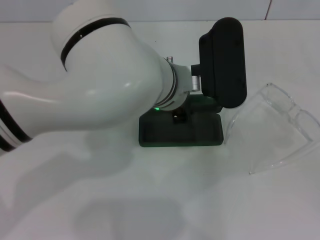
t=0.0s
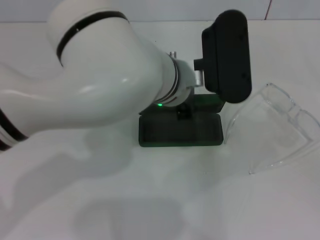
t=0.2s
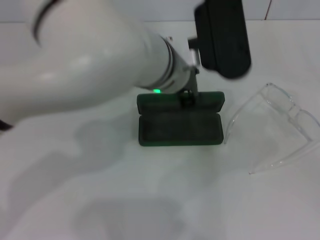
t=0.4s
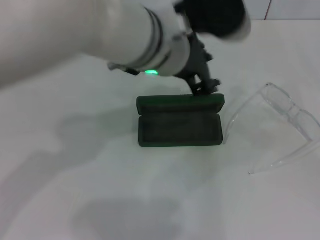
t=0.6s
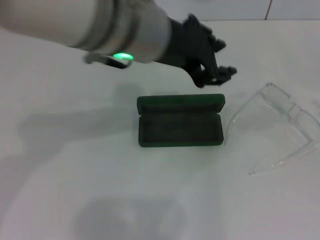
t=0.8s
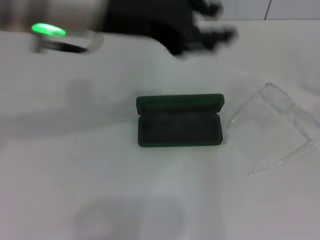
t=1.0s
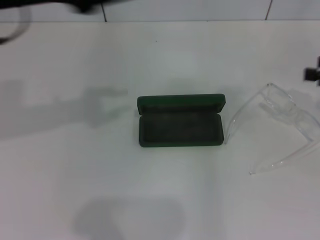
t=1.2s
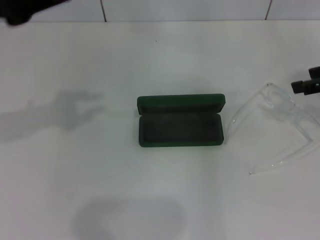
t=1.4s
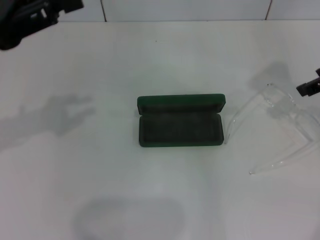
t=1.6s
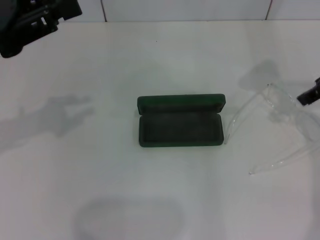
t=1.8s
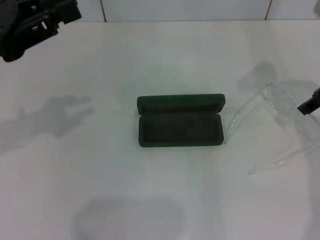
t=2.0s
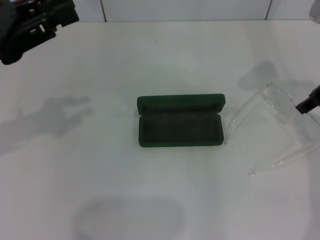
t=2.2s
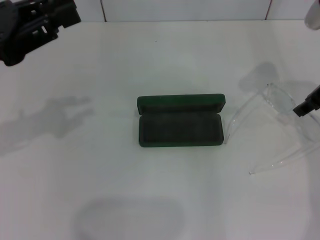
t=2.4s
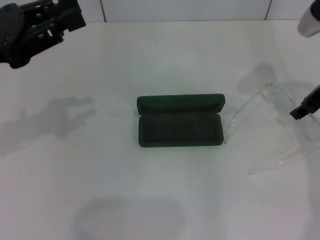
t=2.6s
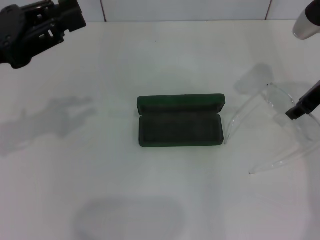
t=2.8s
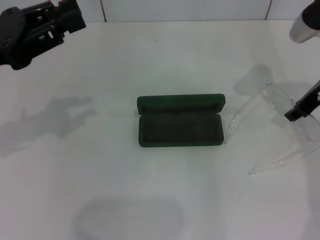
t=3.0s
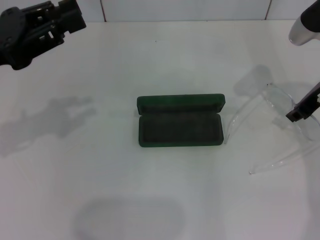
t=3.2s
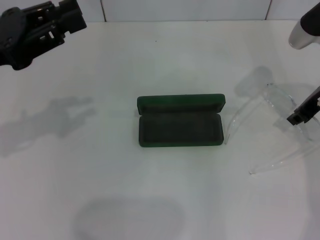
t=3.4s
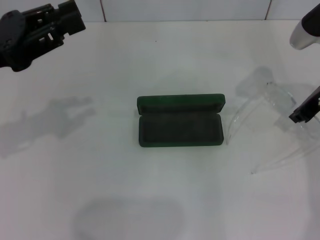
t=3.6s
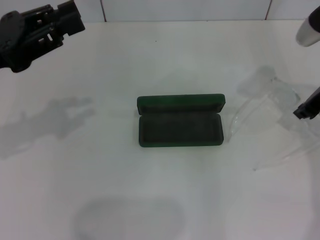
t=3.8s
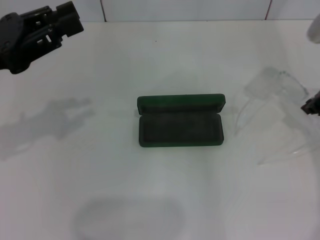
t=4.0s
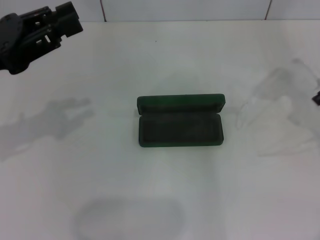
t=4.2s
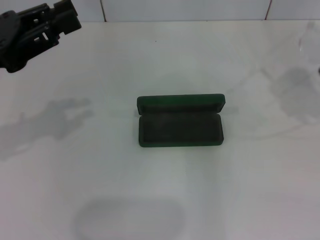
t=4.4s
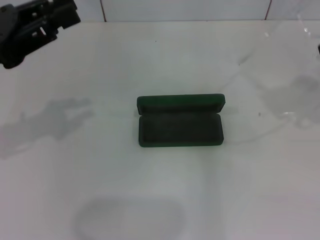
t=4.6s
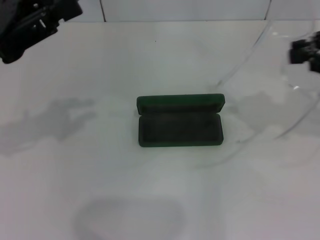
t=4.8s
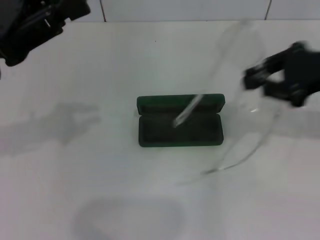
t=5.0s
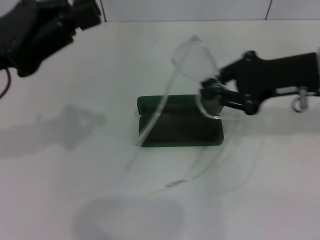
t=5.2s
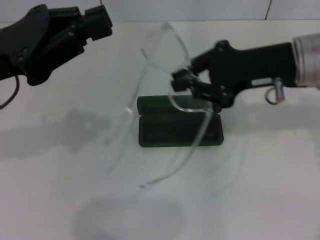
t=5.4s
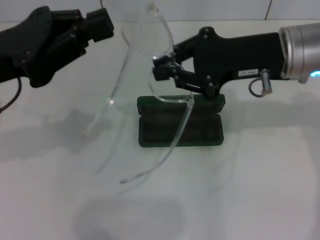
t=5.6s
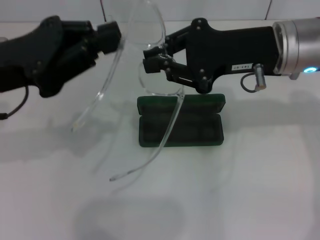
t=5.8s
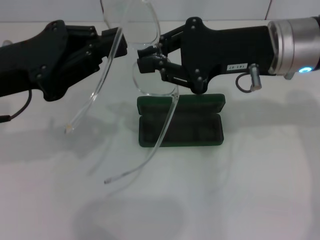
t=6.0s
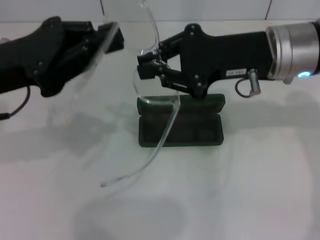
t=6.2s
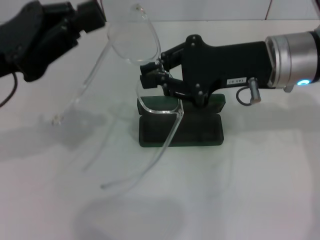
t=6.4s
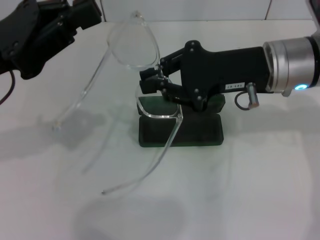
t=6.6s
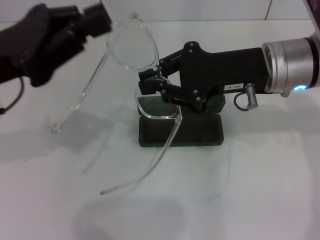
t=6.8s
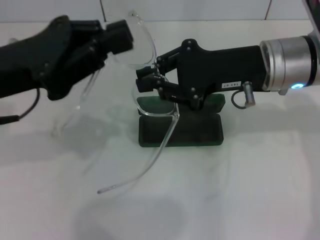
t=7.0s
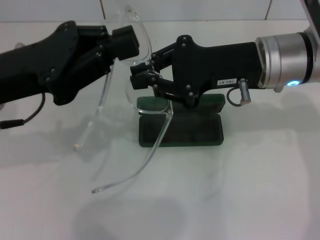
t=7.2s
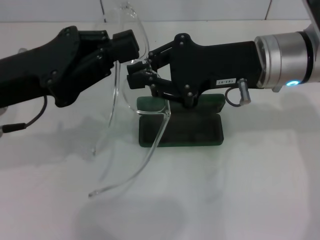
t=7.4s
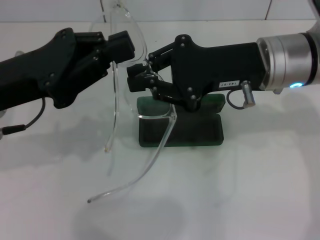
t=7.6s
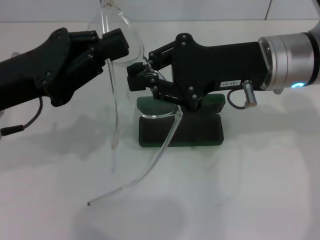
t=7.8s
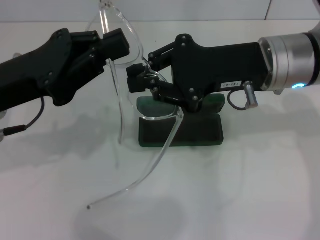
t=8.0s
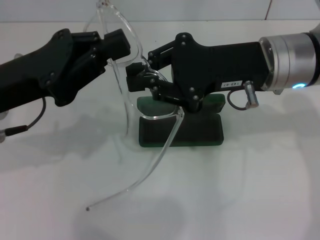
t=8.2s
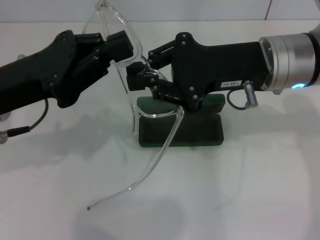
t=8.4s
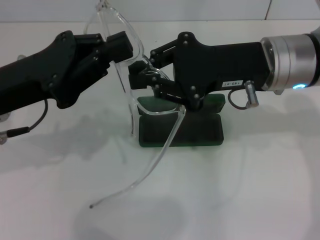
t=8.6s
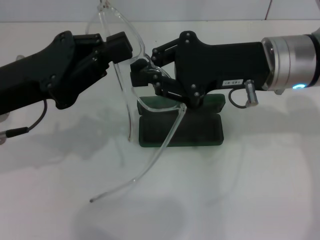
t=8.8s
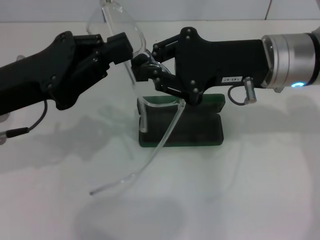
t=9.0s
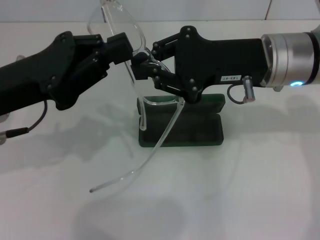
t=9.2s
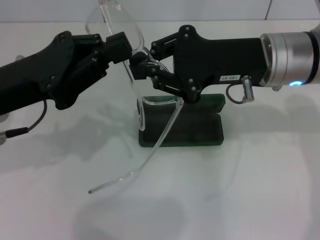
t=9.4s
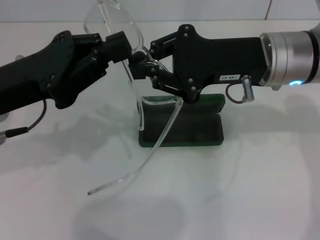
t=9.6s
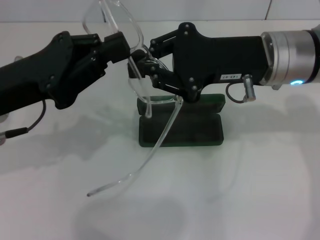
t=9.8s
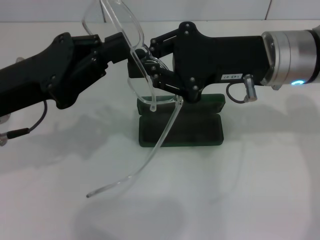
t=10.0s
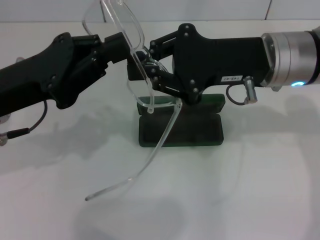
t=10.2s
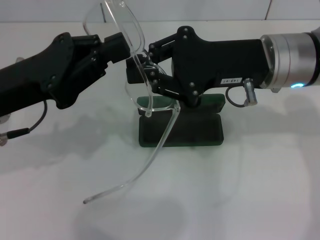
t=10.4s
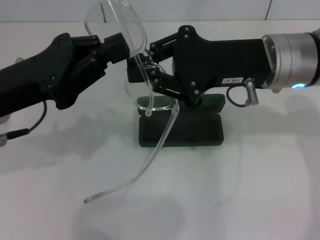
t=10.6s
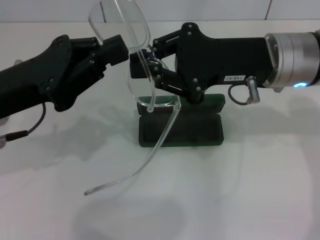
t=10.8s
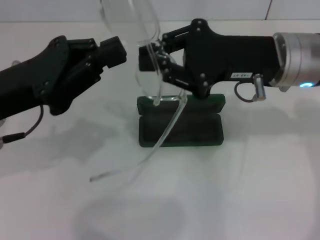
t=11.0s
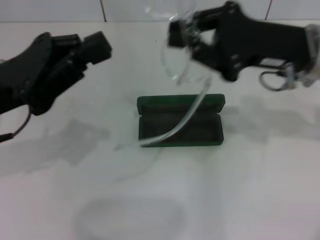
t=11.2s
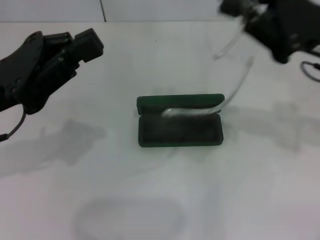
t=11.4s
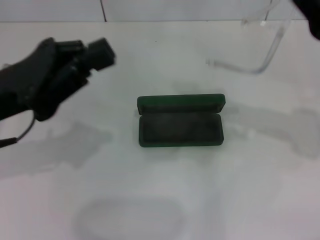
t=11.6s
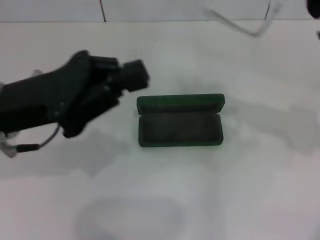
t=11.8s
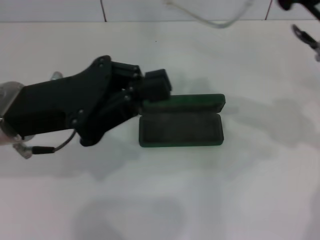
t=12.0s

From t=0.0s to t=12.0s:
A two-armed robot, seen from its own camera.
Step, from t=0.2s to t=3.4s: Grab the eyeglass frame with your right hand.
From t=0.0s to t=1.6s: The left gripper travels to the left by some 25 cm, while the right gripper is displaced forward, to the left and upward by some 30 cm.
From t=1.6s to t=3.0s: The right gripper goes approximately 5 cm downward.
From t=3.0s to t=4.4s: The right gripper goes about 10 cm to the right and upward, and closes.
From t=4.4s to t=6.0s: The right gripper shifts some 15 cm to the left.
From t=6.0s to t=7.6s: The grippers move only a little.
From t=7.6s to t=9.0s: Both grippers stay put.
From t=9.0s to t=10.4s: The two grippers keep their place.
From t=10.4s to t=12.0s: The right gripper travels to the right by approximately 5 cm.

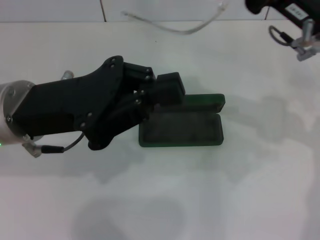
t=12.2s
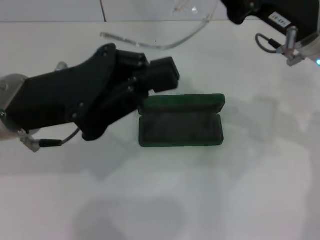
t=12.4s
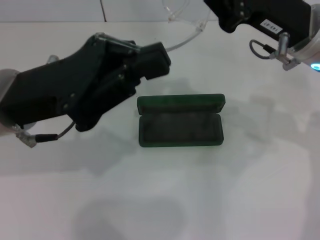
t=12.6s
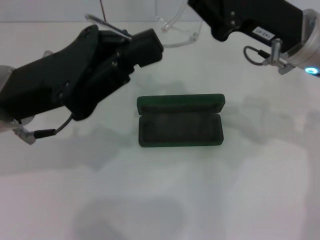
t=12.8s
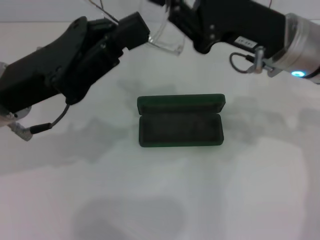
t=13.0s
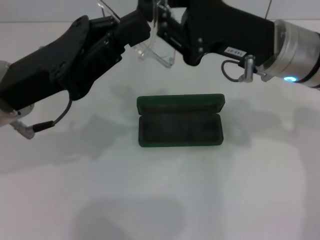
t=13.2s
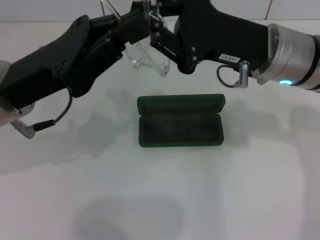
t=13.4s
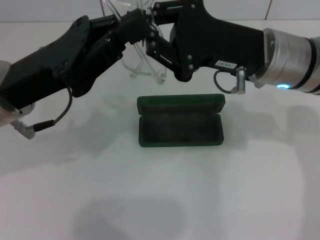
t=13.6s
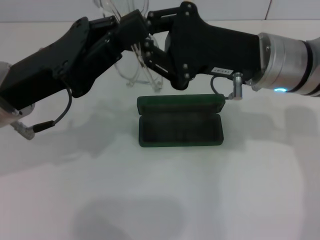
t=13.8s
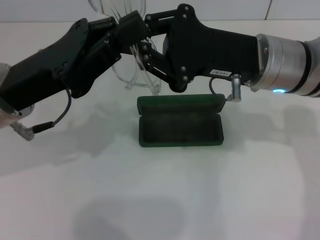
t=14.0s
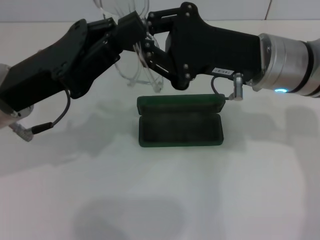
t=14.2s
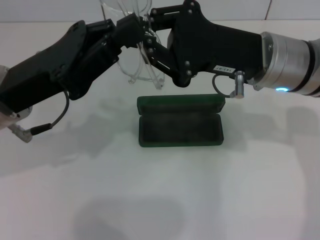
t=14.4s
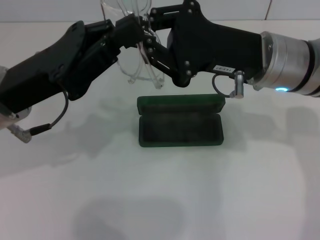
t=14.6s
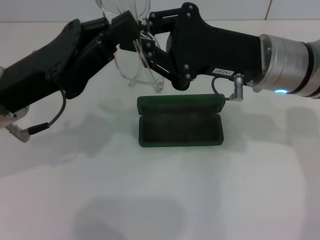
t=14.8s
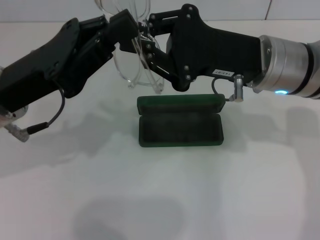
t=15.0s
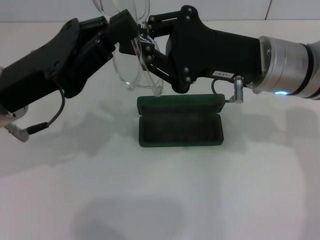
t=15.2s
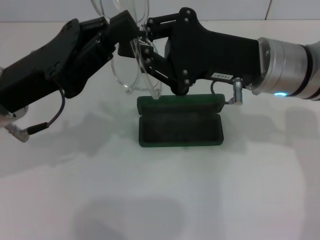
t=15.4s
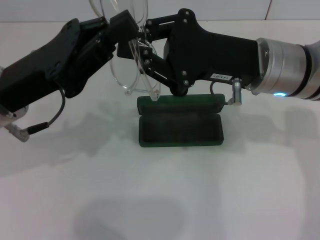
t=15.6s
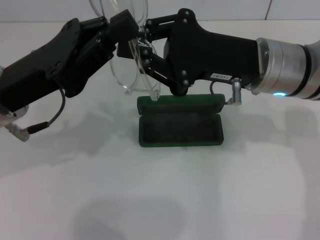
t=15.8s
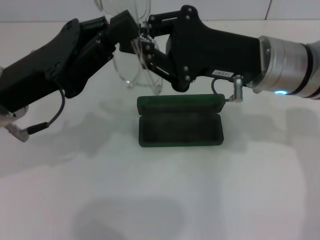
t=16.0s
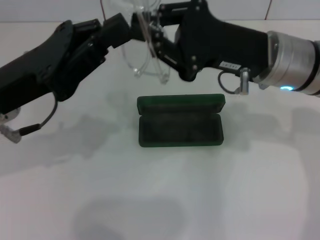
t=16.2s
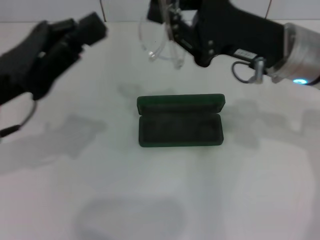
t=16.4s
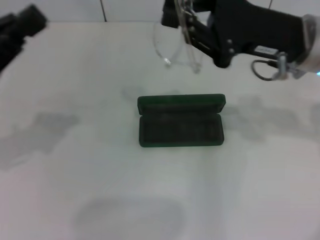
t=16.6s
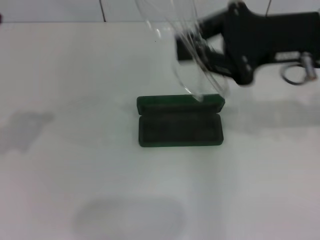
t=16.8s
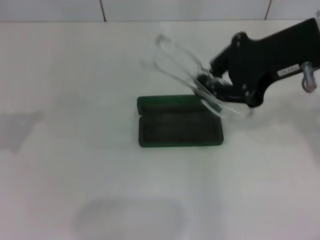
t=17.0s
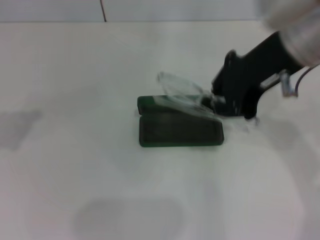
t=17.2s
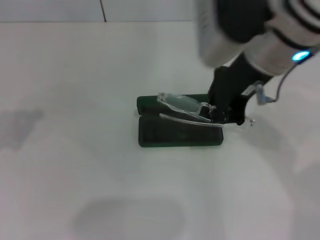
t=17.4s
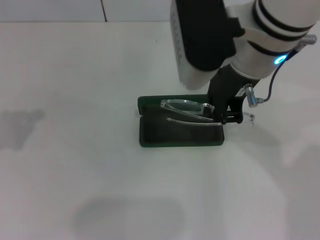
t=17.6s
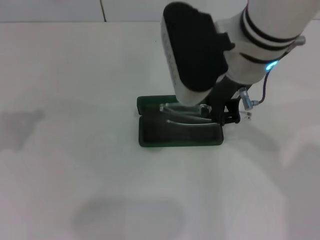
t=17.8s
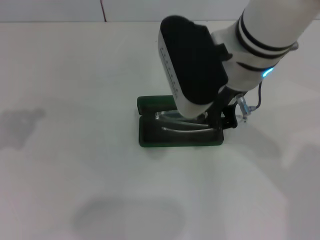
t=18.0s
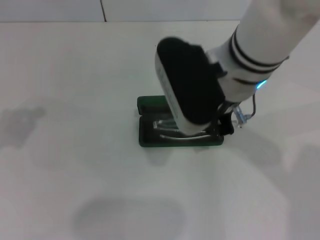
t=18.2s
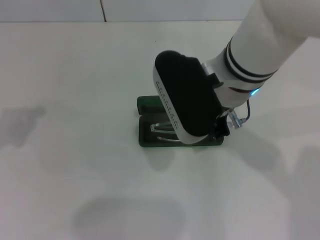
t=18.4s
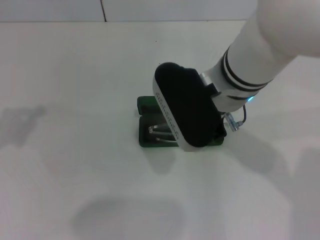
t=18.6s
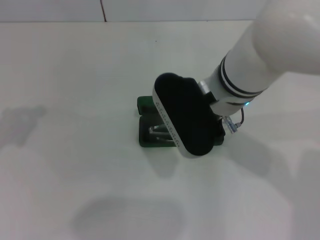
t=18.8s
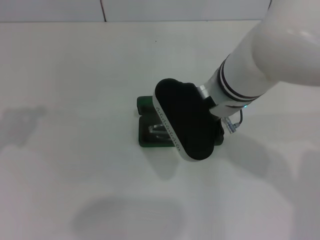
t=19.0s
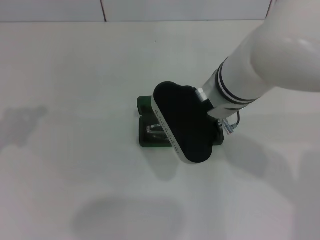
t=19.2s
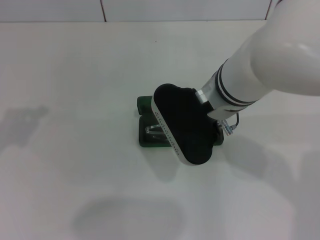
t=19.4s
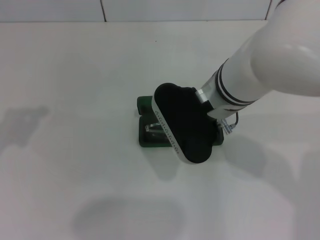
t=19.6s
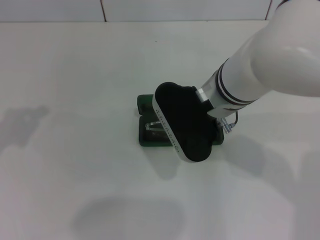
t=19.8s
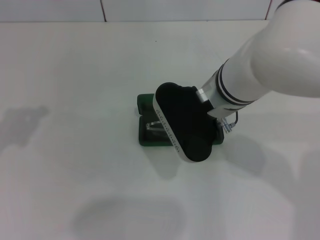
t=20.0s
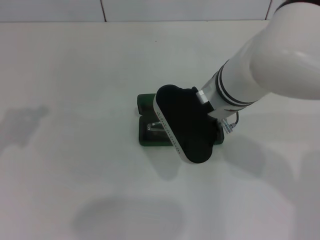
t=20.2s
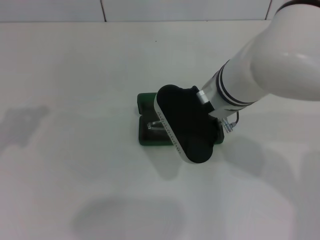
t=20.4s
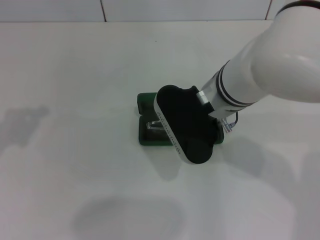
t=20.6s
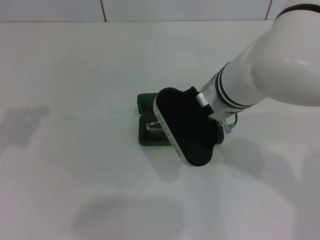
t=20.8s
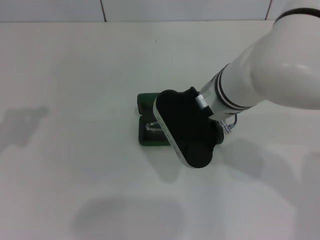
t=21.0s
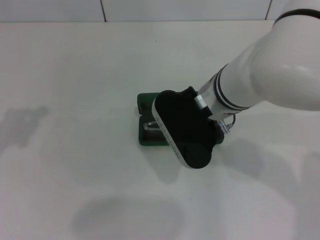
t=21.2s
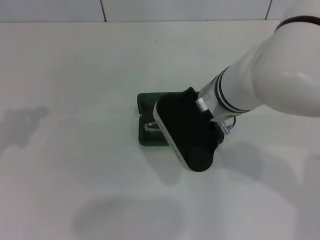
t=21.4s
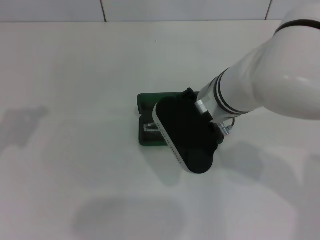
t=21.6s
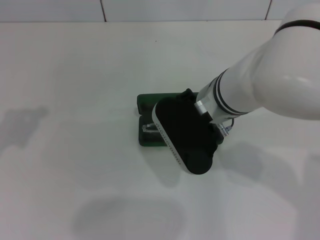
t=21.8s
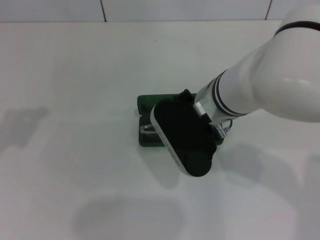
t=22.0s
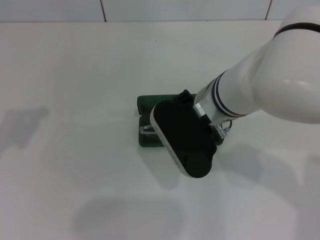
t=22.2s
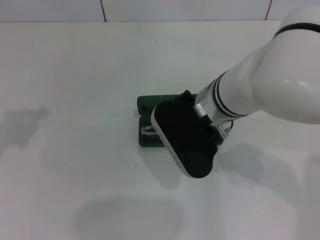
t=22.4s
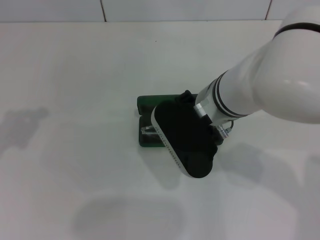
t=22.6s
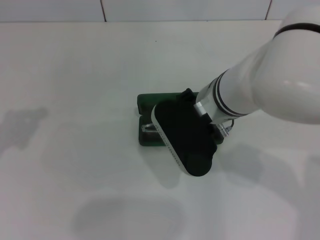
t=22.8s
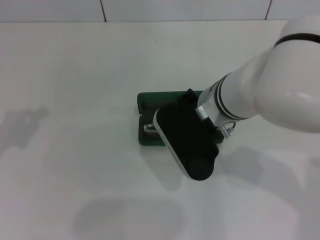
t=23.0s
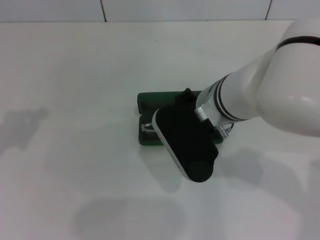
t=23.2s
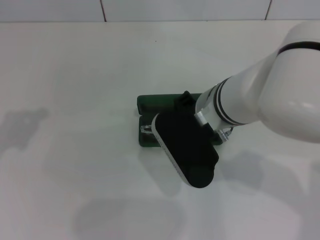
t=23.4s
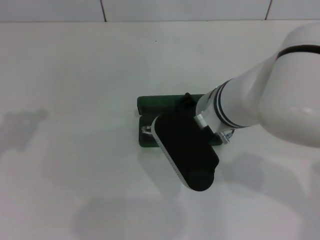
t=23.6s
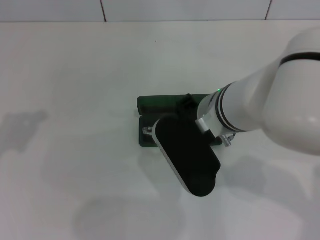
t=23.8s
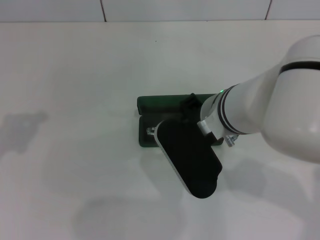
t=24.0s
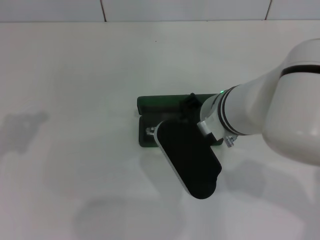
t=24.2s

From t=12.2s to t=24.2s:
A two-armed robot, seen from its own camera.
Step, from t=12.2s to t=14.2s: Fold the frame with your left hand.
From t=12.2s to t=13.8s: The right gripper is displaced to the left by some 5 cm.
From t=13.8s to t=15.2s: Neither gripper changes place.
From t=15.2s to t=16.6s: The left gripper heads to the left, covering some 10 cm, while the right gripper moves roughly 5 cm.
From t=16.6s to t=18.2s: The right gripper goes roughly 10 cm to the left.
From t=18.2s to t=19.8s: The right gripper heads downward, covering some 5 cm.
From t=19.8s to t=21.2s: The two grippers keep their place.
From t=21.2s to t=22.6s: The two grippers keep their place.
From t=22.6s to t=24.2s: There are only small adjustments of the grippers.
